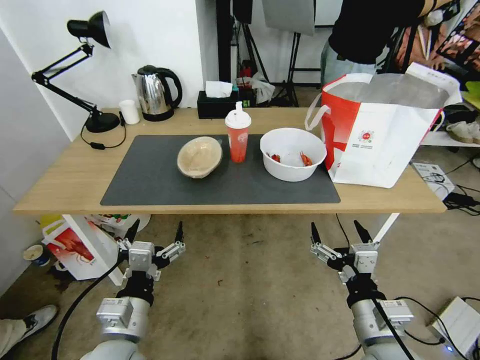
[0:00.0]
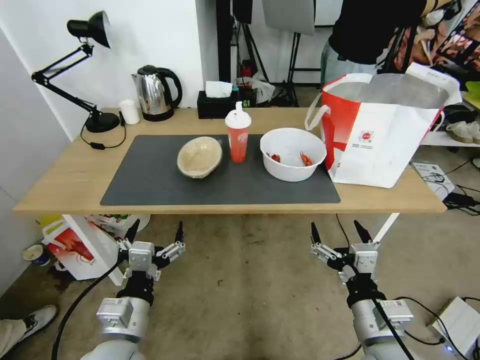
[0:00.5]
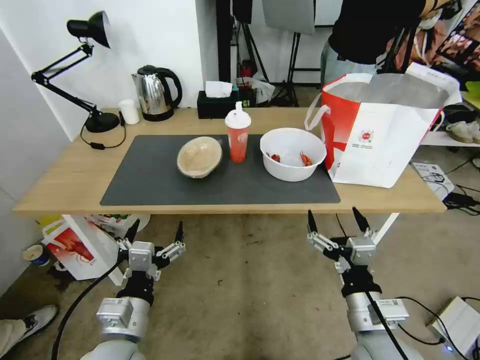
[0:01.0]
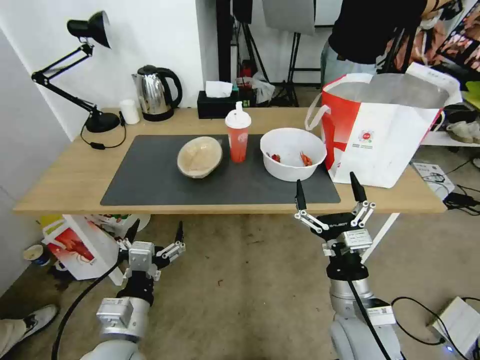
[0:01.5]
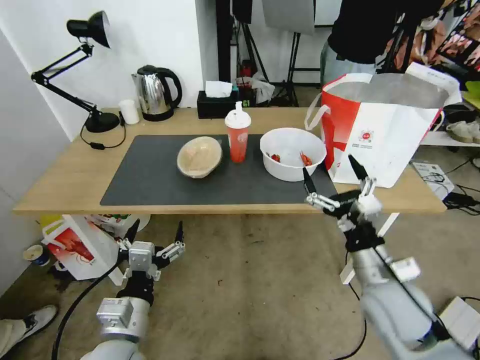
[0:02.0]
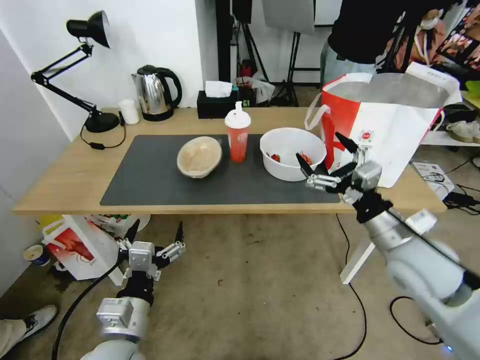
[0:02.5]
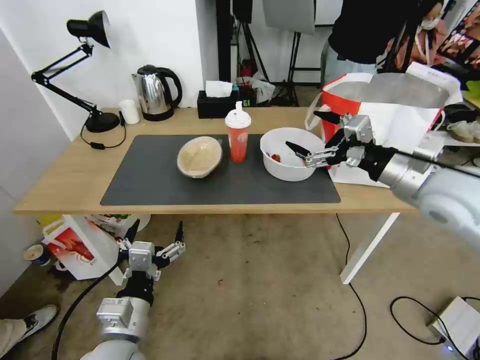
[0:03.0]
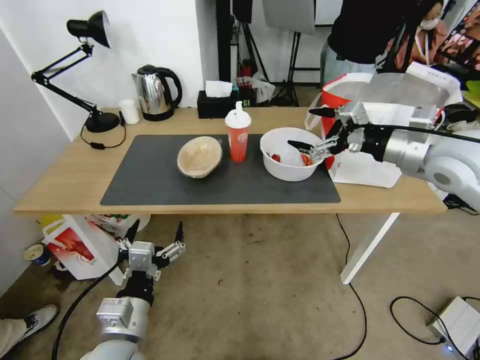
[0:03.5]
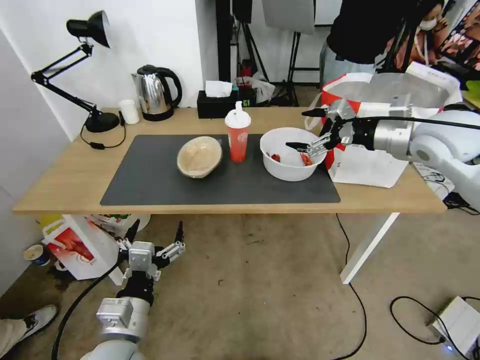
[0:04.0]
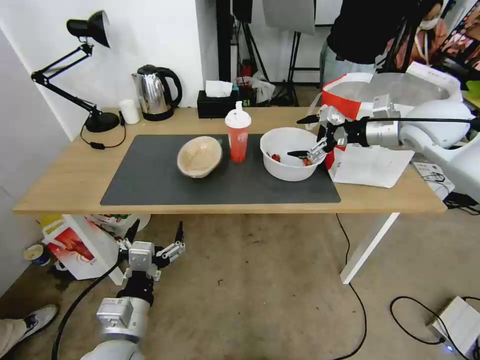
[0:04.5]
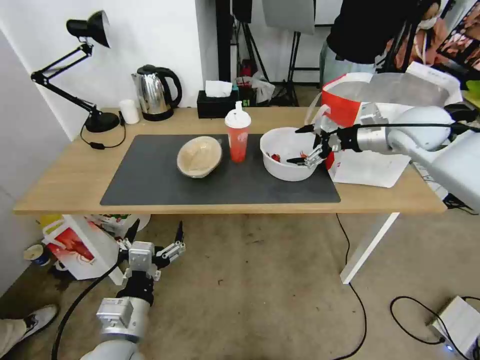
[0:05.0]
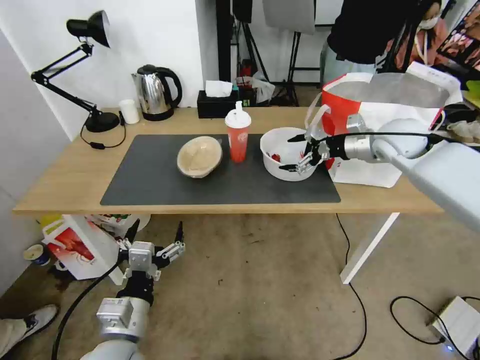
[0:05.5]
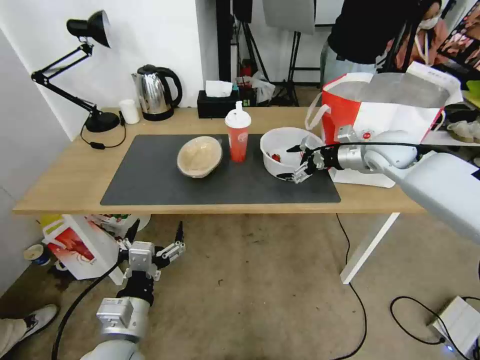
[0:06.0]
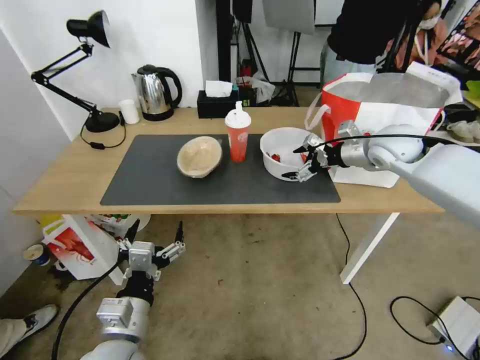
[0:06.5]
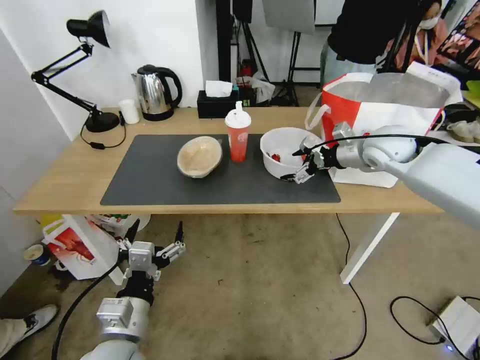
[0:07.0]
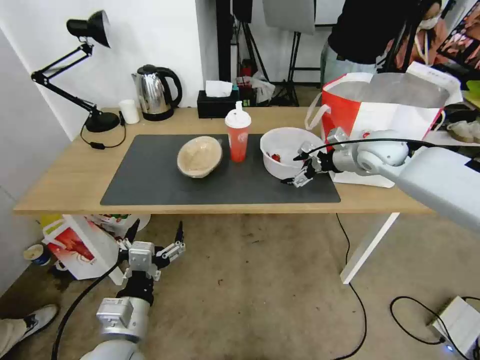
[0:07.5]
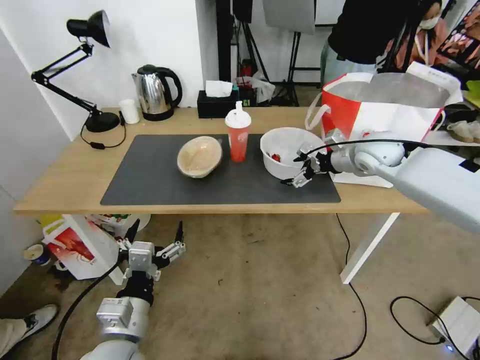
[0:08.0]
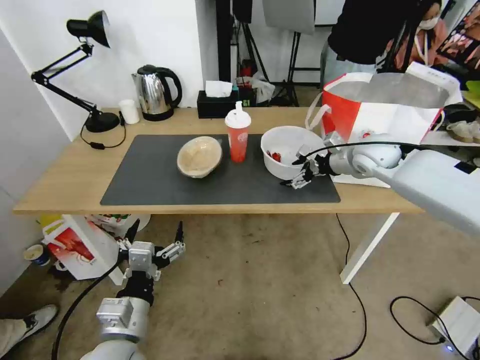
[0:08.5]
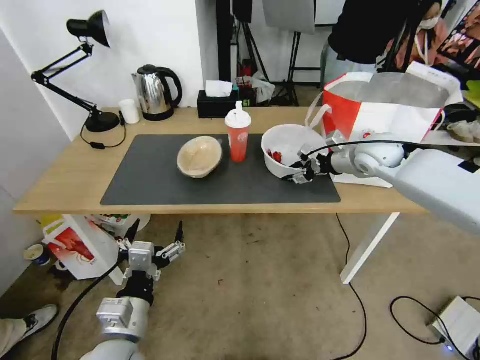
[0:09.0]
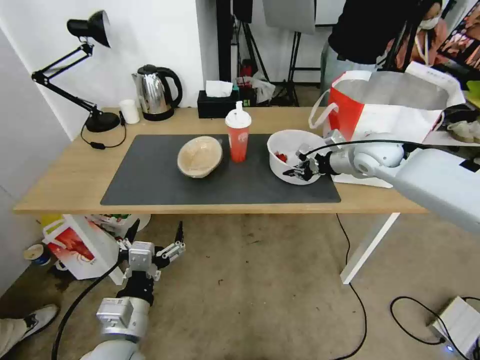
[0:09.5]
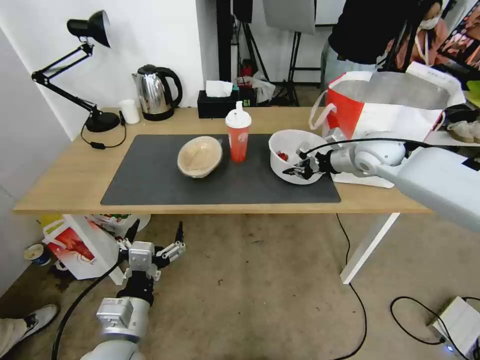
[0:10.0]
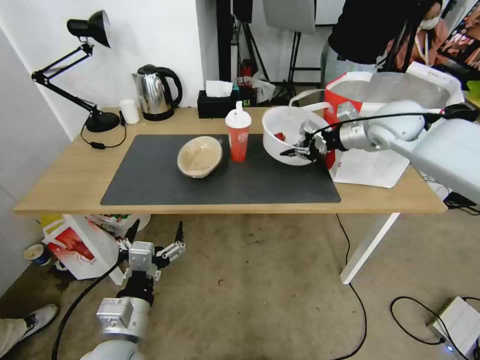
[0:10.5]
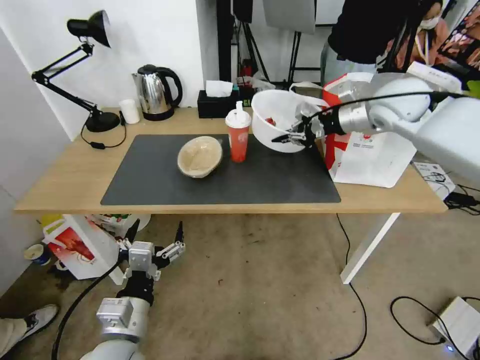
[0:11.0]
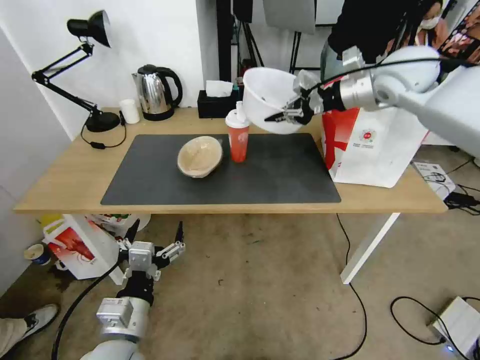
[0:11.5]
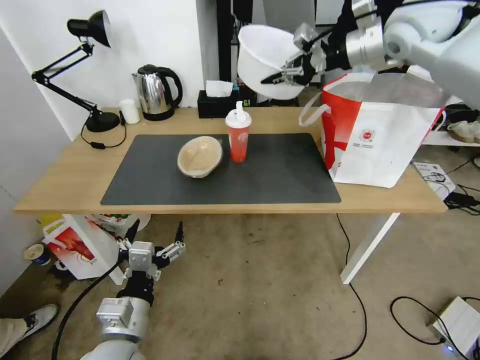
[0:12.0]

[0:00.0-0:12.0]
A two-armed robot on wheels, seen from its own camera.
Task of the whole recording: Pick up the trash from the table and place it into the takeout bag.
0:02.0 to 0:04.0: The right gripper is displaced upward, forward and to the right by some 30 cm.
0:04.0 to 0:06.0: The right gripper is displaced downward and forward by about 10 cm.
0:06.0 to 0:08.0: The grippers stay close to where they were, moving slightly.
0:08.0 to 0:10.0: The right gripper closes its fingers.
0:10.0 to 0:12.0: The right gripper heads upward, covering about 25 cm.

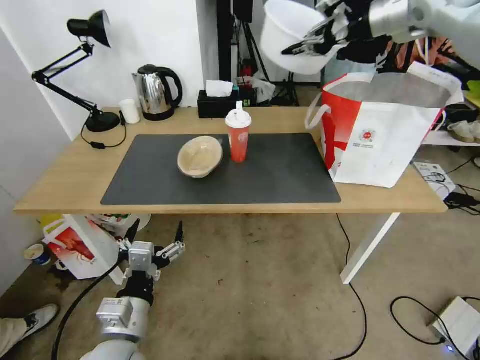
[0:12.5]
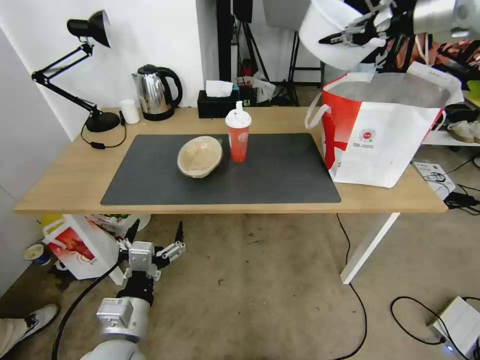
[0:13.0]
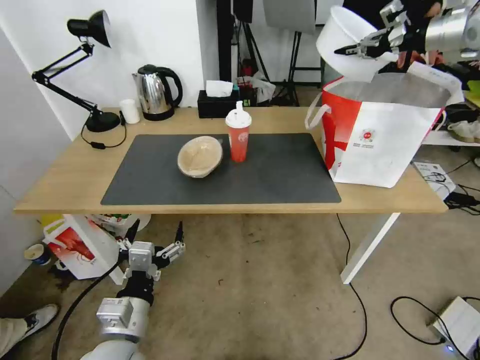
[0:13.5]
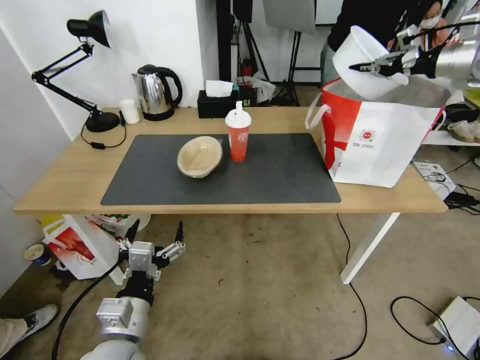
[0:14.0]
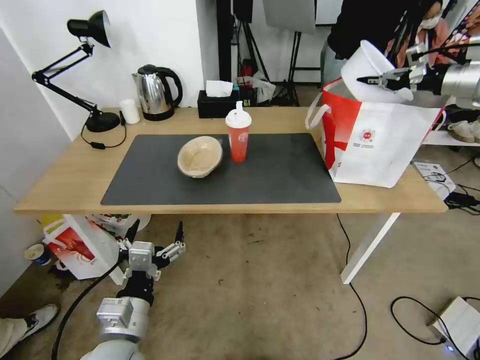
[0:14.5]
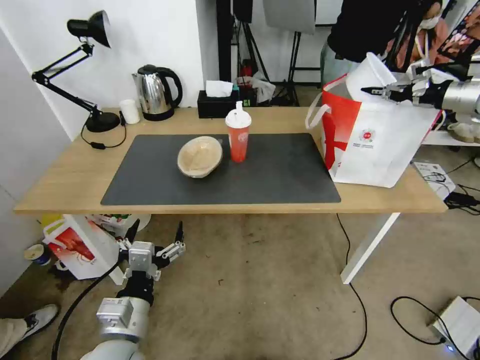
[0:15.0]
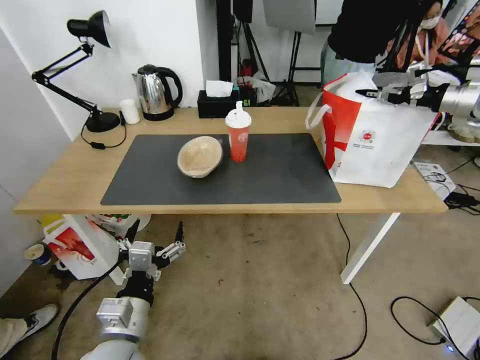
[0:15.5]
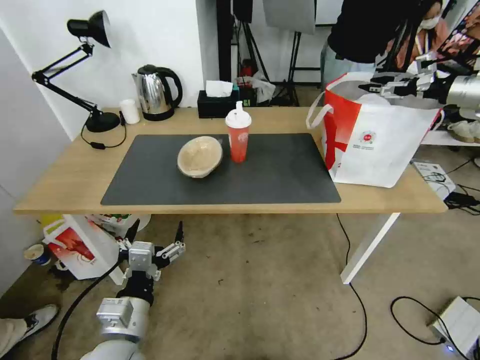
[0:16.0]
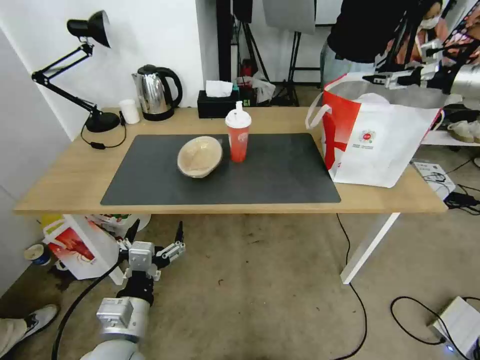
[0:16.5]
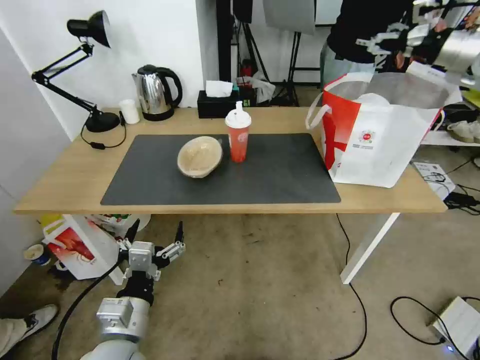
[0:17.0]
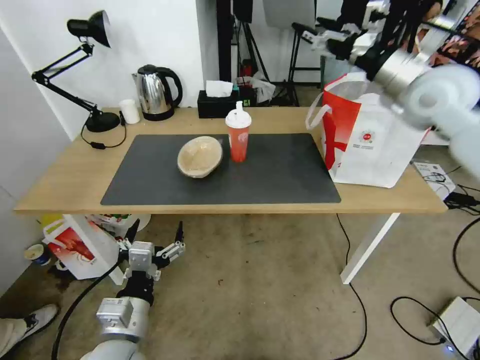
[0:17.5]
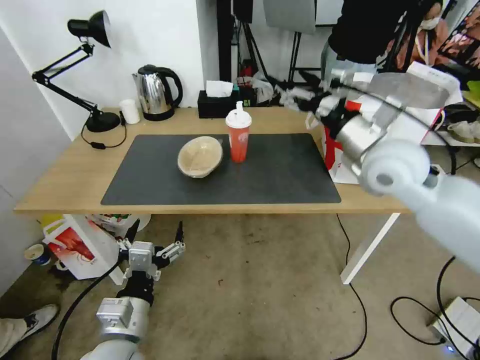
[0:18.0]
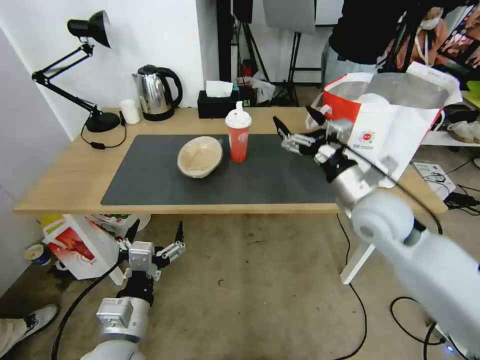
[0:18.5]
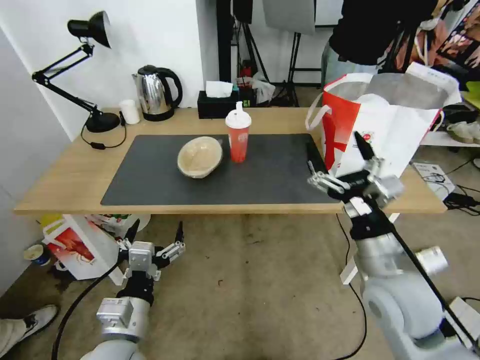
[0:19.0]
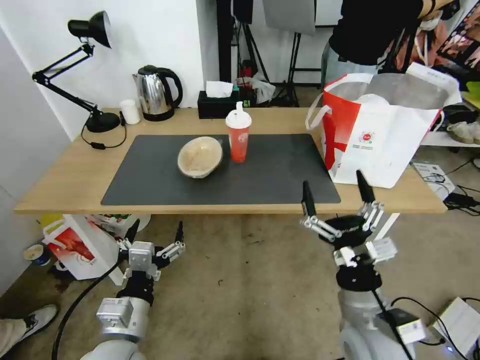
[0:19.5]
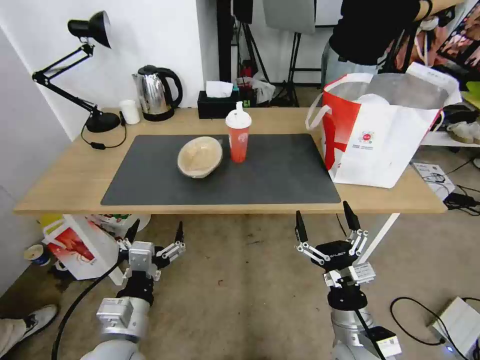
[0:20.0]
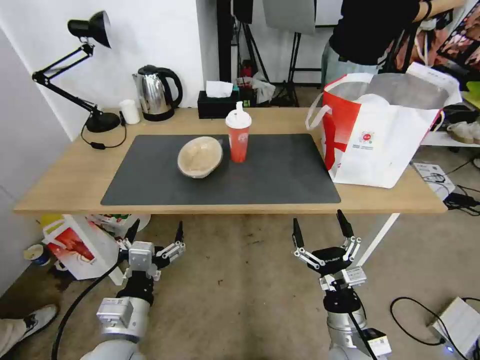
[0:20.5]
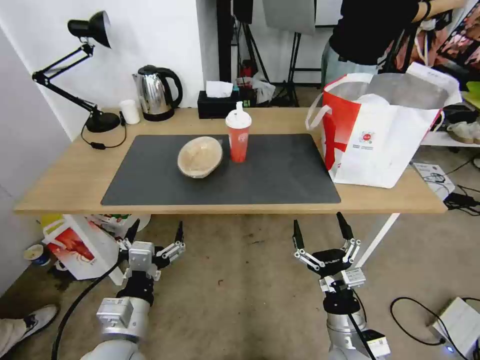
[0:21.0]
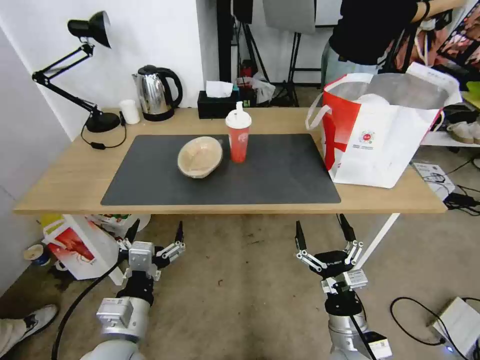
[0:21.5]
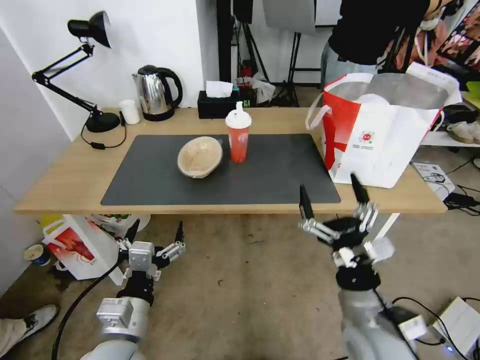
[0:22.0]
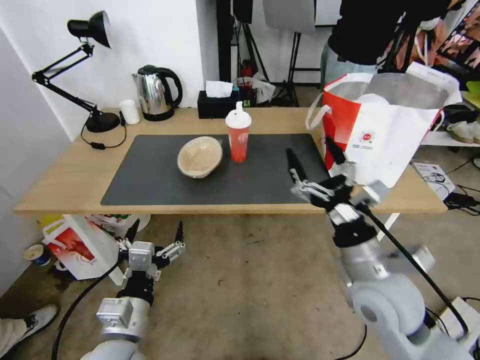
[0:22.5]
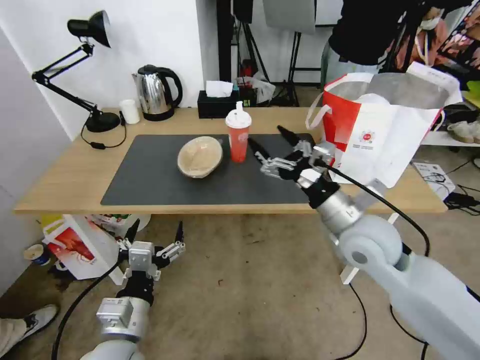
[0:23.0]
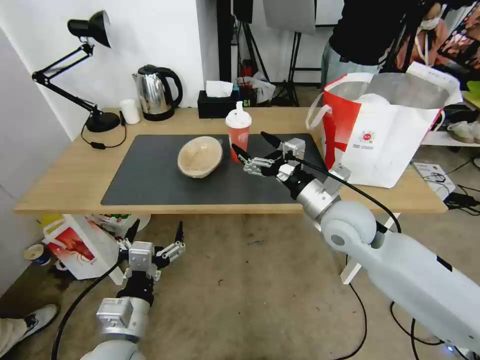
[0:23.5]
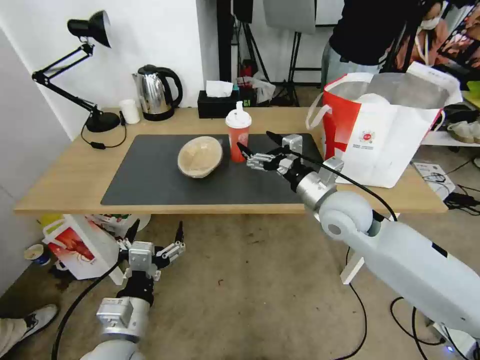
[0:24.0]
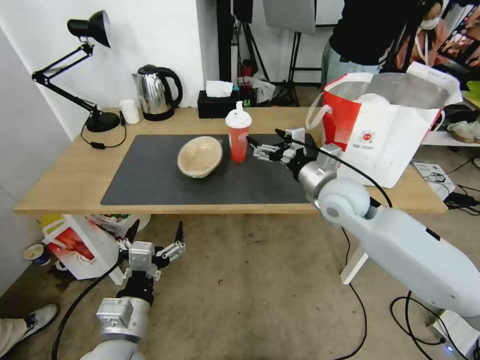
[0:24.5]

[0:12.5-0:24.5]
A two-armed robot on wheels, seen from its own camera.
Task of the whole recording: Pick up the trash from the table and place it into the takeout bag.
0:12.5 to 0:14.5: The right gripper heads to the right and downward, covering approximately 25 cm.
0:14.5 to 0:16.5: The right gripper opens.
0:16.5 to 0:18.5: The right gripper moves to the left, backward and downward, roughly 40 cm.
0:18.5 to 0:20.5: The right gripper heads downward and backward, covering about 30 cm.
0:20.5 to 0:22.5: The right gripper goes about 15 cm upward and forward.
0:22.5 to 0:24.5: The right gripper moves forward, roughly 15 cm.

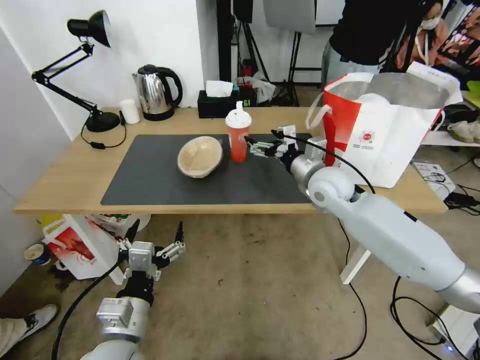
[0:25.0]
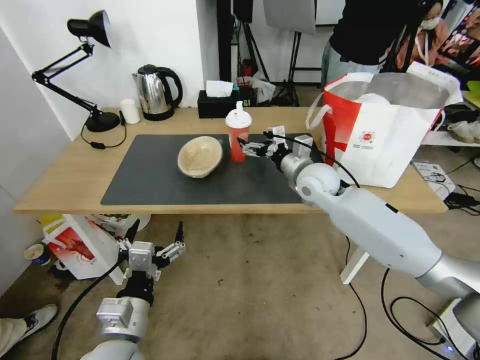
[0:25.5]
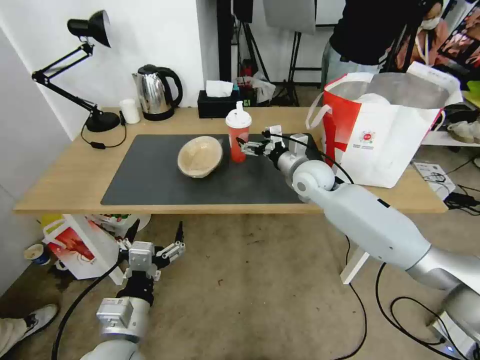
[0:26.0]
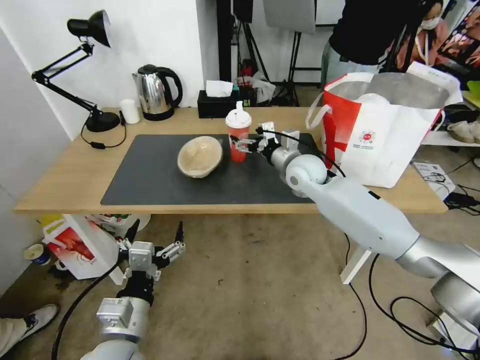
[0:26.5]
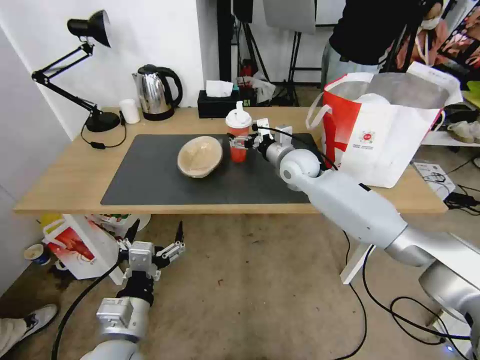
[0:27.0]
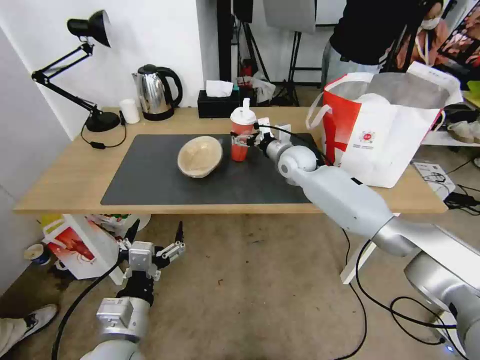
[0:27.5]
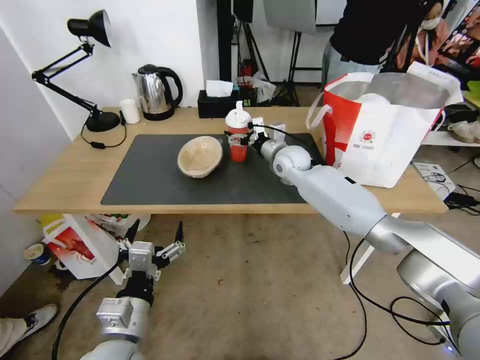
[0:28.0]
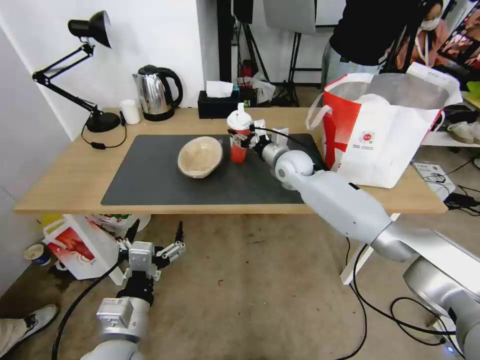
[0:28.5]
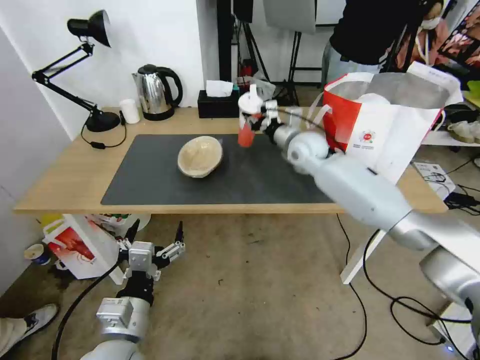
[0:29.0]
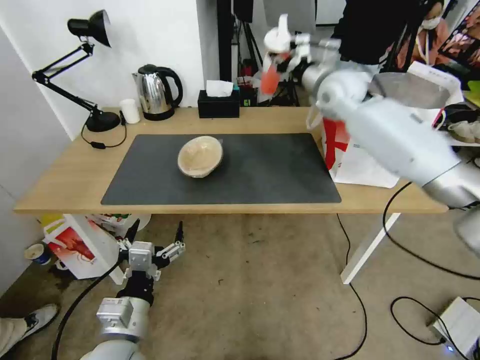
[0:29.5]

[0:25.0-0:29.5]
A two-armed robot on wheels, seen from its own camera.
Task of the whole recording: Pick up the trash from the table and place it into the takeout bag.
0:25.0 to 0:27.0: The right gripper goes about 10 cm forward and to the left.
0:27.0 to 0:29.5: The right gripper heads upward and to the right, covering roughly 20 cm, and closes.
